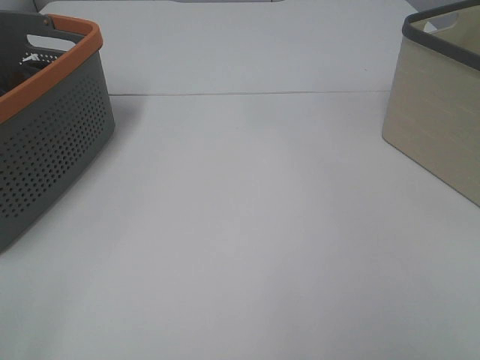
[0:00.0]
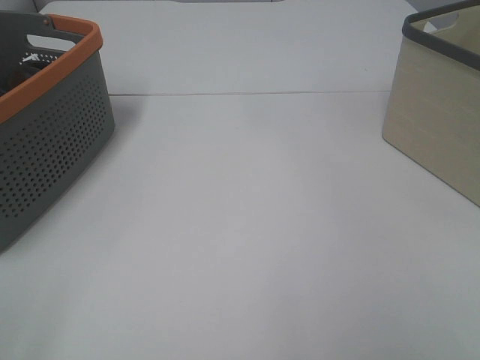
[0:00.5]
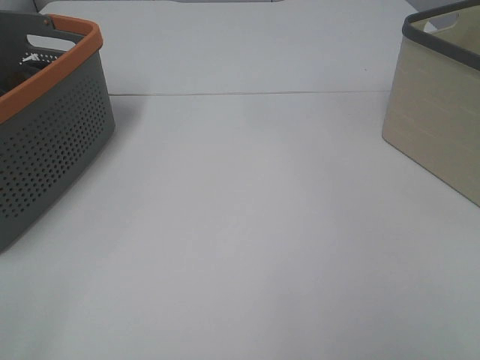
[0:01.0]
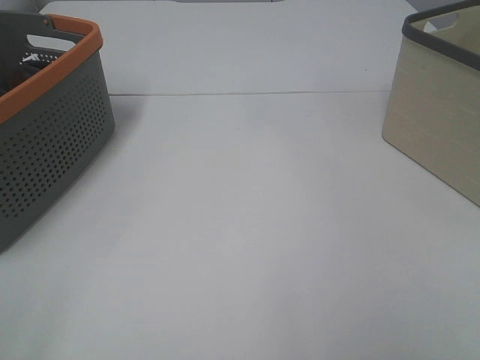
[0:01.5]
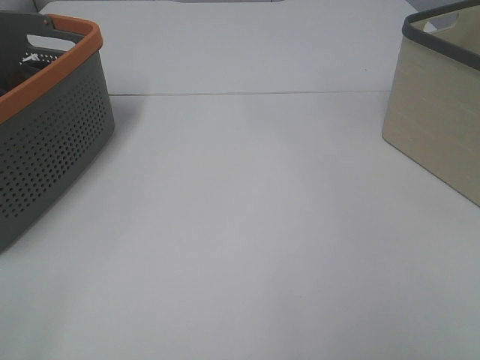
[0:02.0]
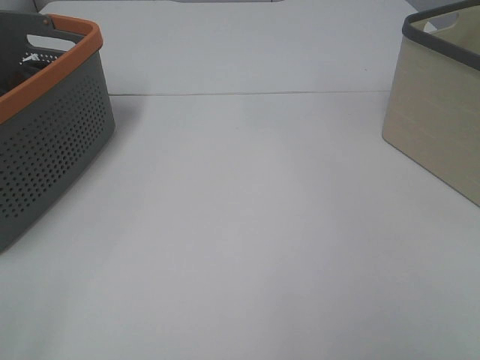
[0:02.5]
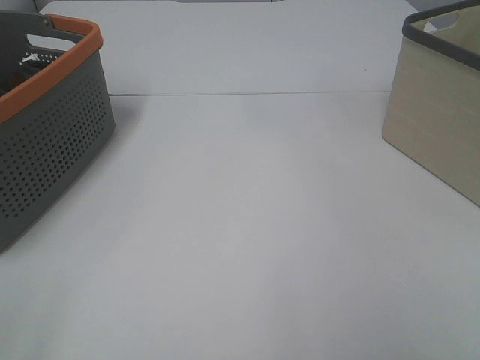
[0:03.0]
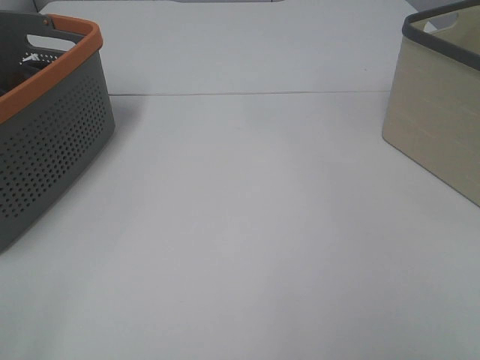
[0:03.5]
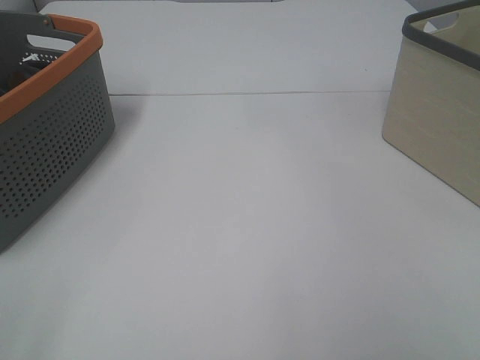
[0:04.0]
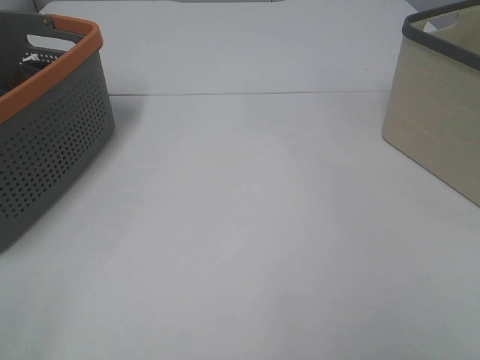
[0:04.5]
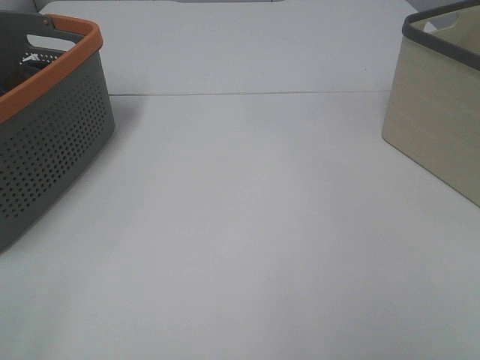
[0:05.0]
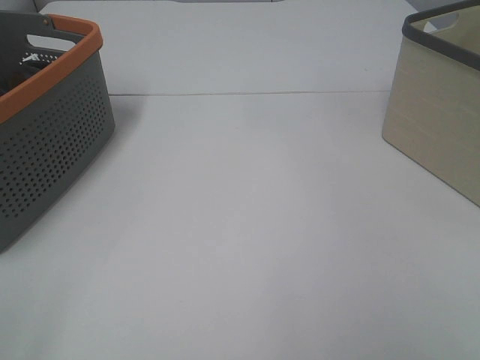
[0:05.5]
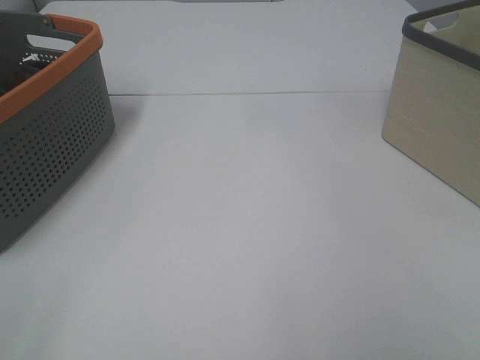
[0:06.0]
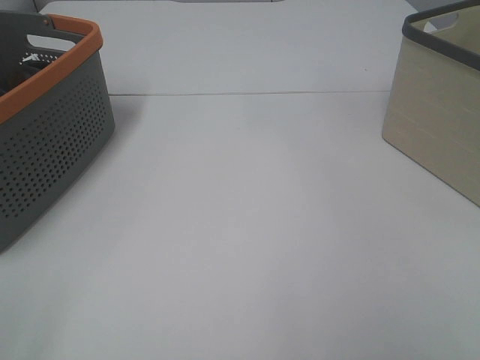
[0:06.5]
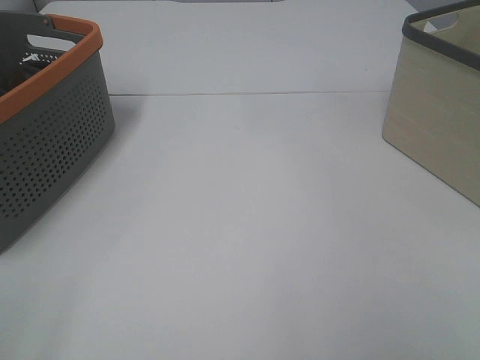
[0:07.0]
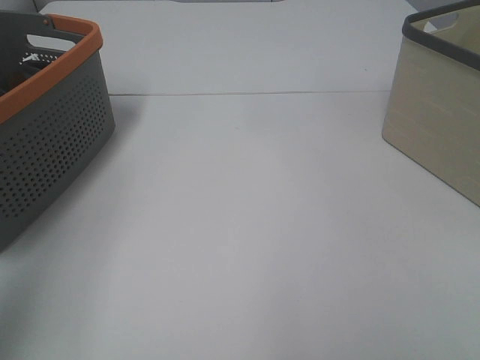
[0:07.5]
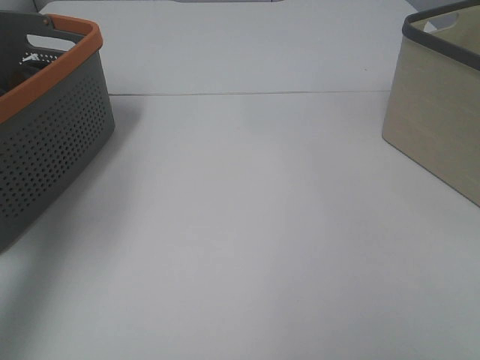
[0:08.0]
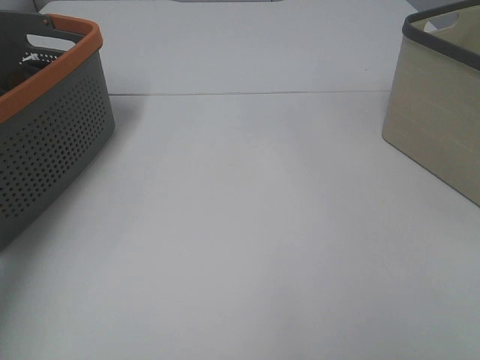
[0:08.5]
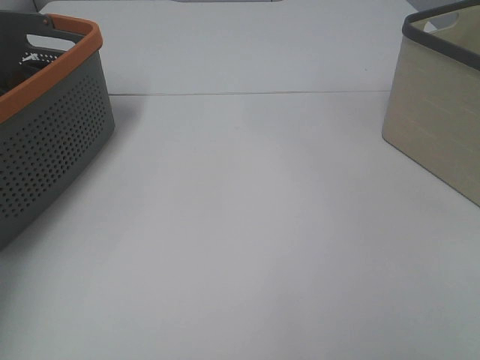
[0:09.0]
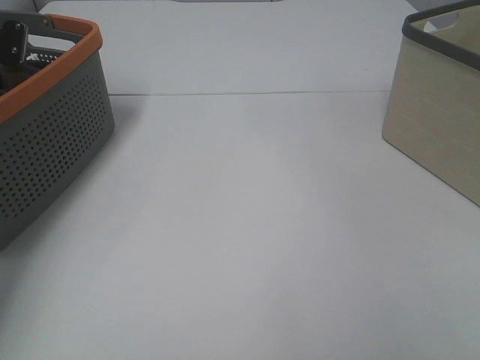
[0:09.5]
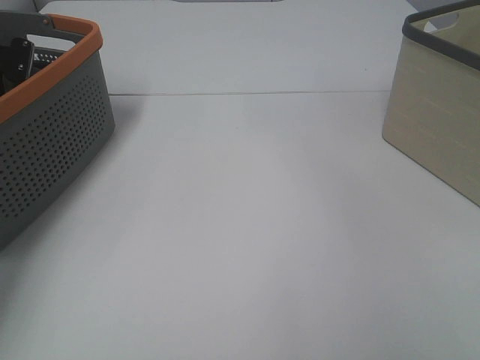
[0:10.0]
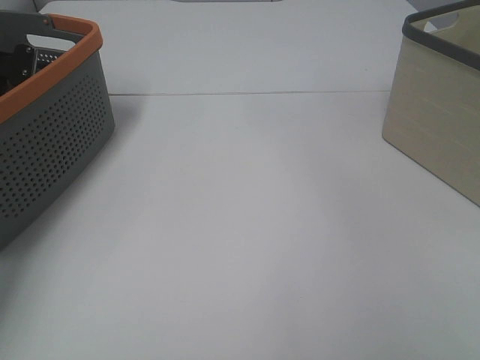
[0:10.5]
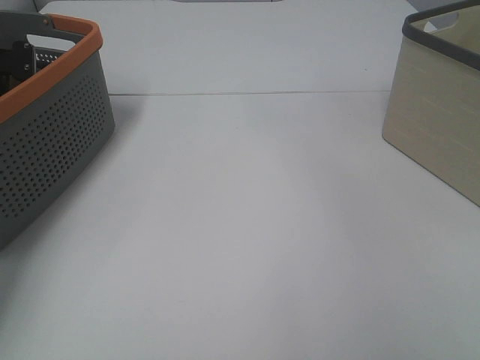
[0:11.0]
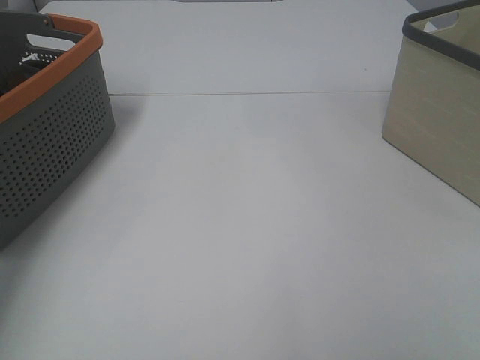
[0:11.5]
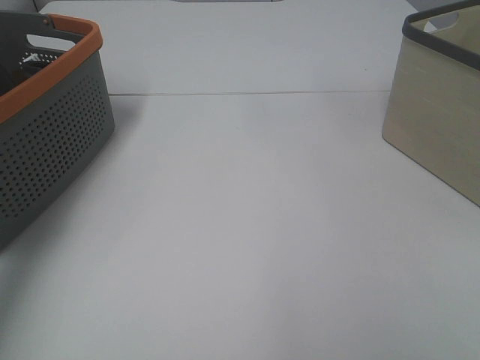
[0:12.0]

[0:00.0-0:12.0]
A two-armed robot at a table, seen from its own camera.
Task of the whole recording: Remove the towel and place it.
0:00.0 to 0:06.0: Neither gripper changes place.
0:06.0 to 0:08.0: The left gripper goes about 30 cm forward and upward.
0:08.0 to 0:10.0: The left gripper is displaced downward and forward by about 30 cm.

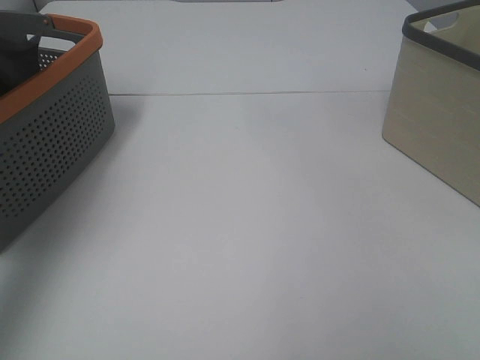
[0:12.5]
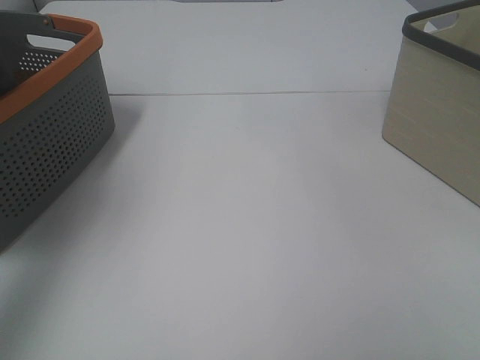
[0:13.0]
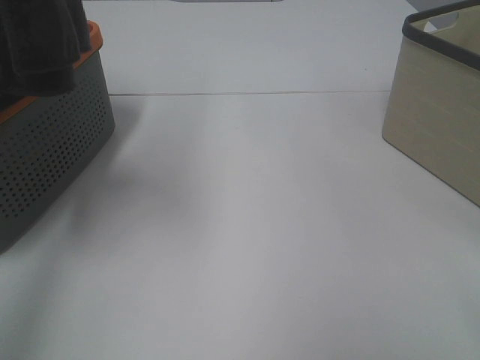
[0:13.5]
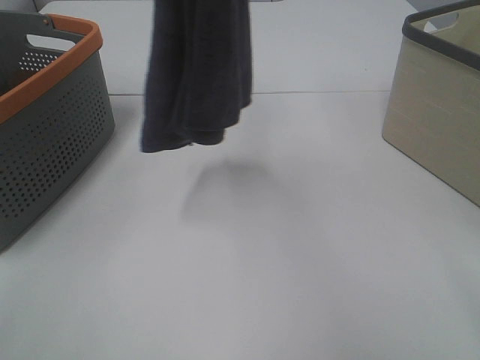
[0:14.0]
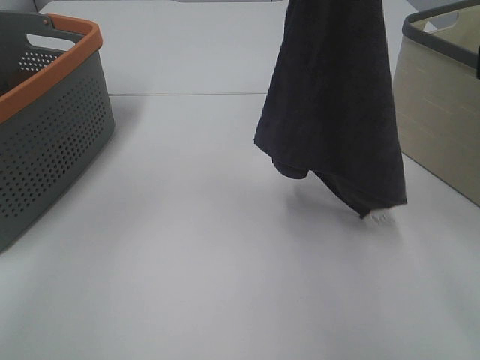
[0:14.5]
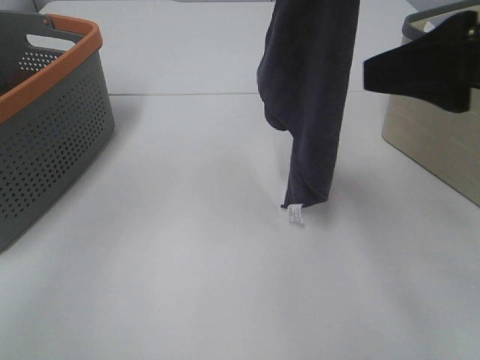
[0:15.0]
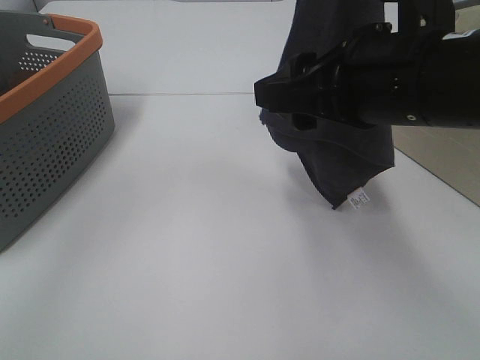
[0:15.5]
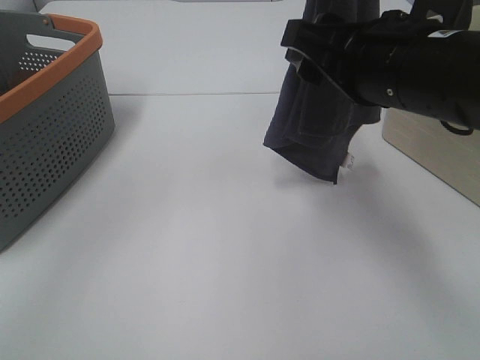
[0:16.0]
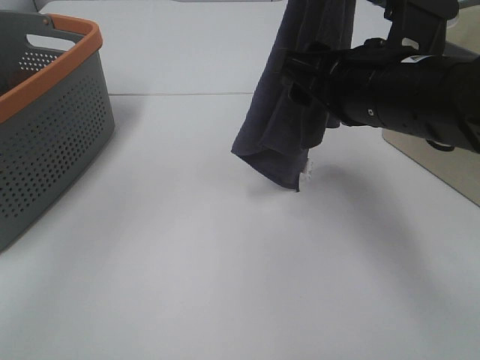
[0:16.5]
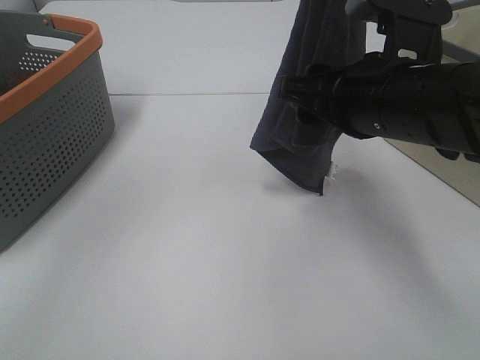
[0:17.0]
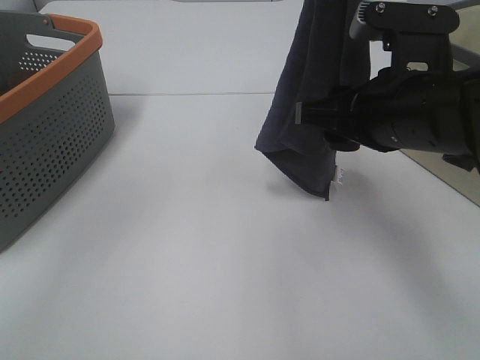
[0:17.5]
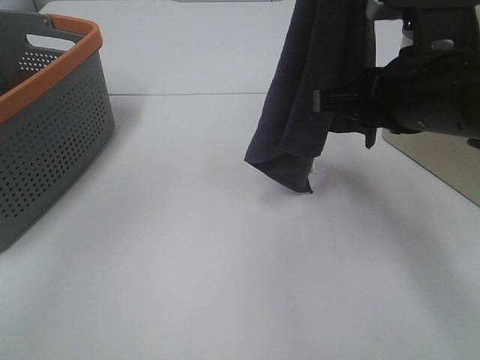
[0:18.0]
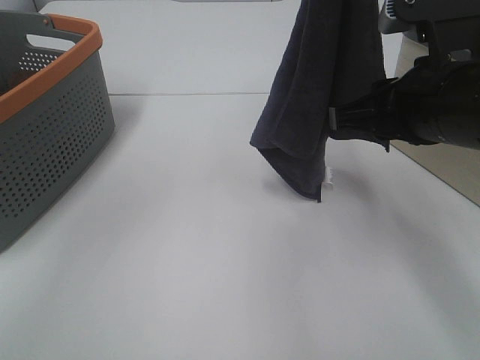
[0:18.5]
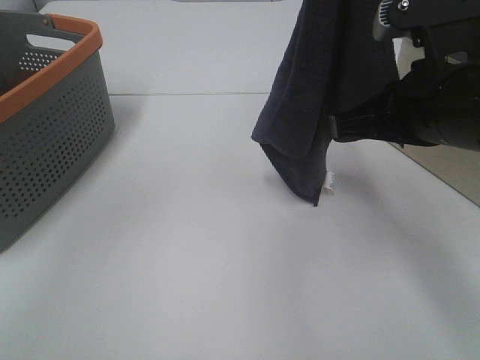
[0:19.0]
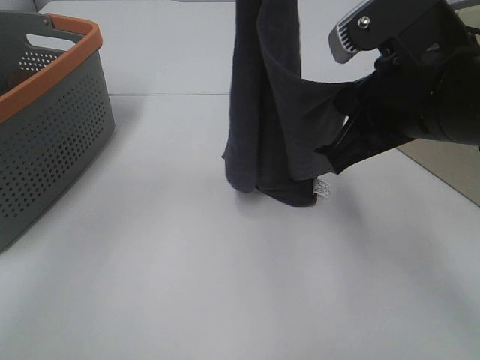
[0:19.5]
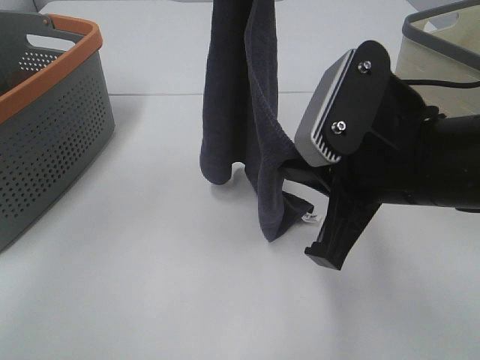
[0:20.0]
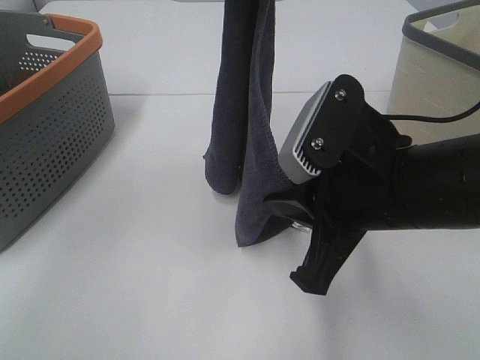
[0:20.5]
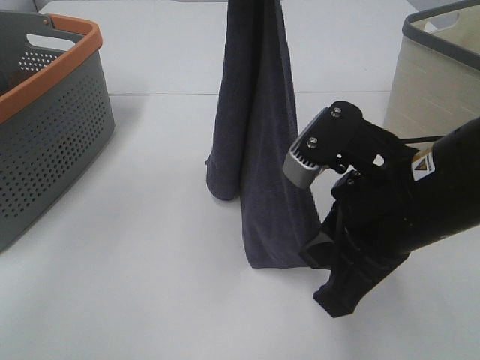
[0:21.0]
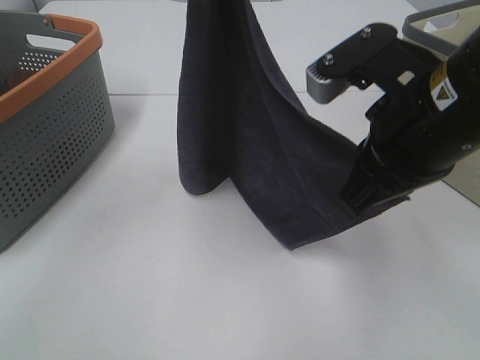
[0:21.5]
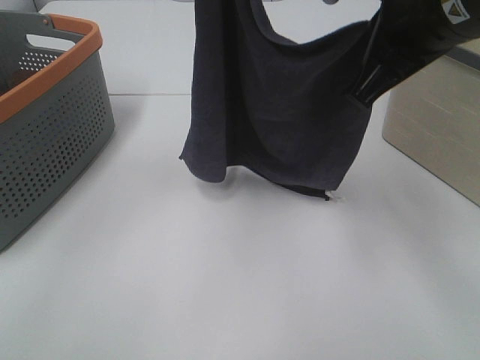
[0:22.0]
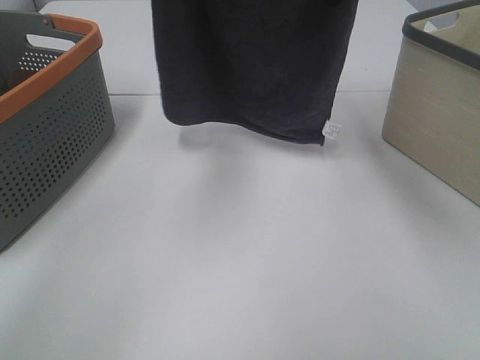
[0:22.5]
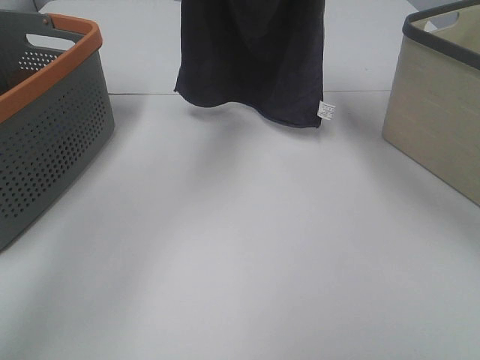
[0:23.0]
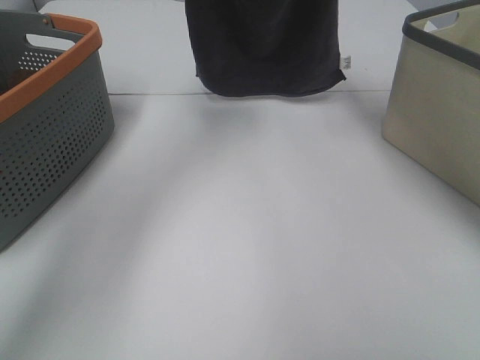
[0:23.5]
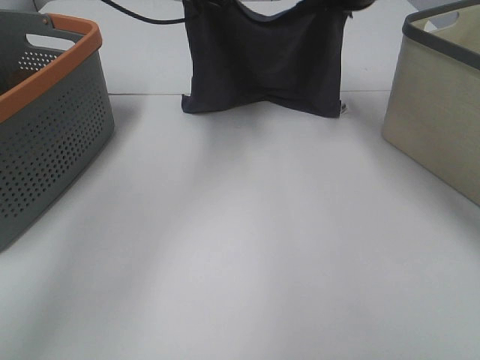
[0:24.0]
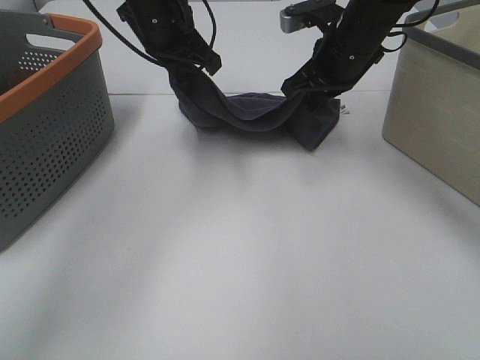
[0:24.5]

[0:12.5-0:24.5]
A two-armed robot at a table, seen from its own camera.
Task of the whole recording: Remove the towel and place it.
Step, 0:12.5 to 0:18.5: Right hand: grab a corner of the grey towel and straighten it.
Step, 0:19.0 to 0:21.5: Left hand: spread the grey towel flat on the table.
Step, 0:19.0 to 0:21.5: Right hand: spread the grey towel flat on the table.
0:12.5 to 0:14.5: The right gripper goes some 15 cm forward and upward. The left gripper shifts roughly 30 cm to the right.
0:14.5 to 0:16.5: The right gripper travels to the left, forward and downward by approximately 20 cm.
0:16.5 to 0:18.5: The right gripper closes up.
0:18.5 to 0:20.5: The right gripper moves some 5 cm, and closes. Meanwhile the left gripper shifts by approximately 5 cm.
0:20.5 to 0:22.5: The left gripper travels forward and to the left by roughly 10 cm. Meanwhile the right gripper goes roughly 20 cm forward and upward.
0:22.5 to 0:24.5: The right gripper moves downward and forward, roughly 15 cm. The left gripper goes roughly 15 cm downward.

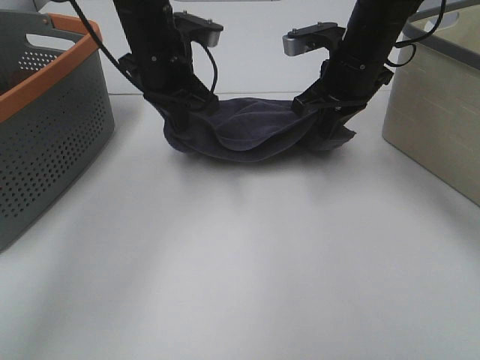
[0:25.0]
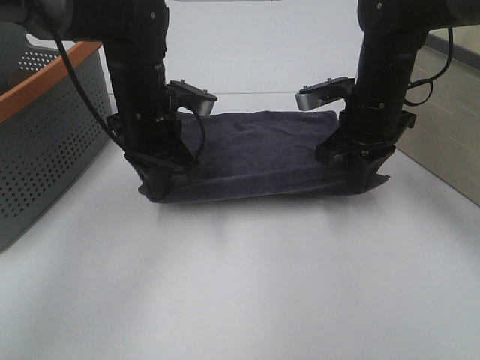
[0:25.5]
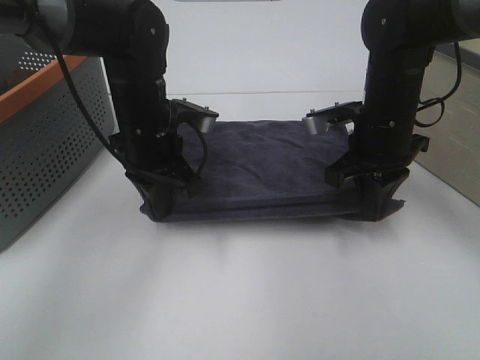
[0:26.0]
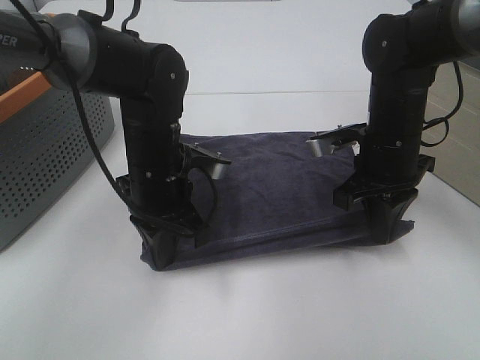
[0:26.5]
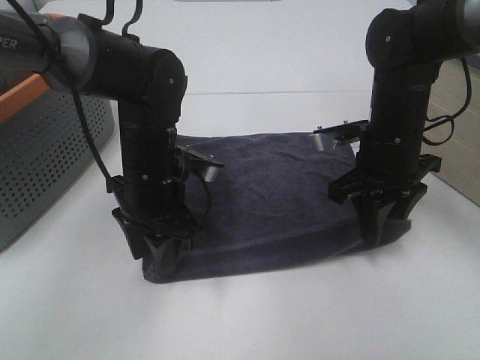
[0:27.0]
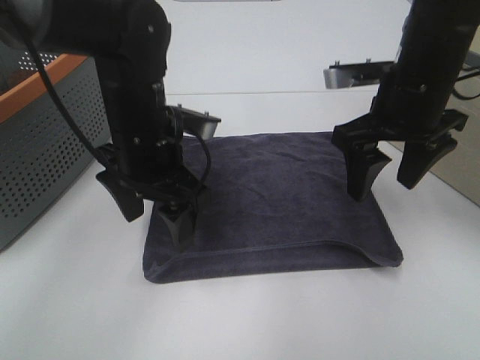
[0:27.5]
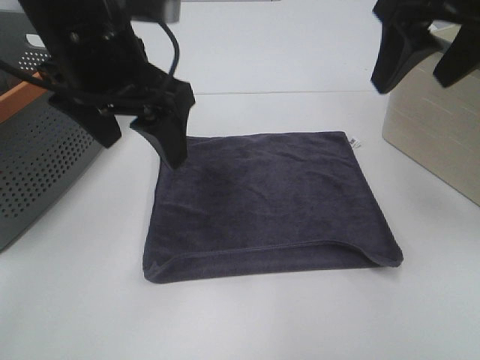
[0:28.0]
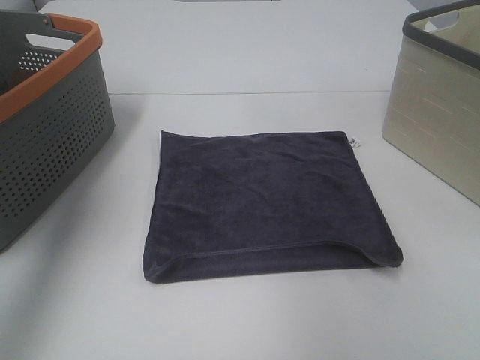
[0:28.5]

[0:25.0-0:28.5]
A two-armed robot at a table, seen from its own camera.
Task of the whole recording: Remove the towel and place it.
0:25.0 to 0:27.0: Both grippers move backward and downward, roughly 10 cm. The right gripper opens. The left gripper opens up.
0:27.0 to 0:28.5: The right gripper shifts approximately 30 cm upward and to the right, and opens up, while the left gripper heads upward and to the left, covering approximately 35 cm.
